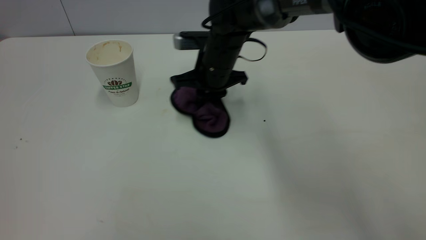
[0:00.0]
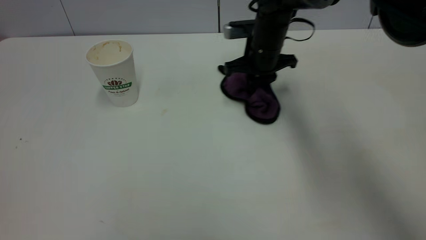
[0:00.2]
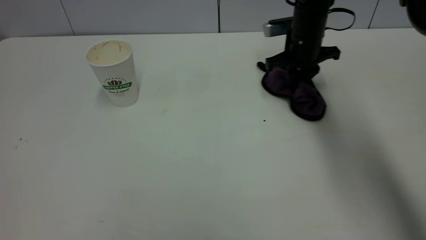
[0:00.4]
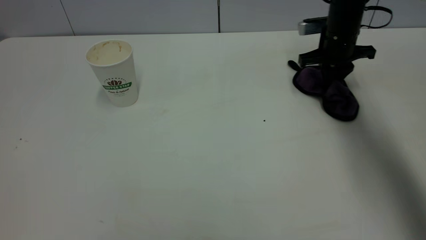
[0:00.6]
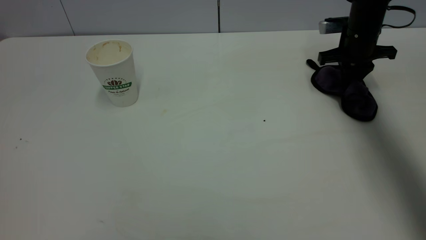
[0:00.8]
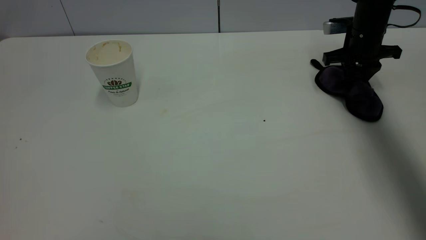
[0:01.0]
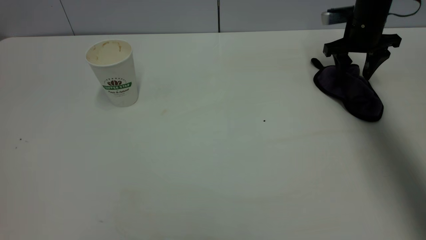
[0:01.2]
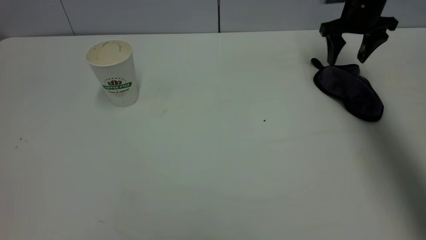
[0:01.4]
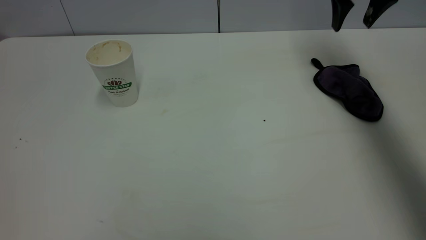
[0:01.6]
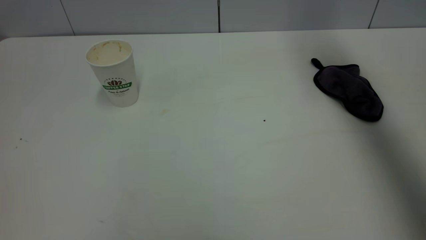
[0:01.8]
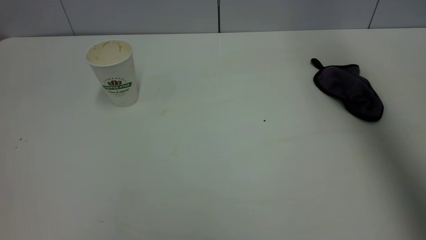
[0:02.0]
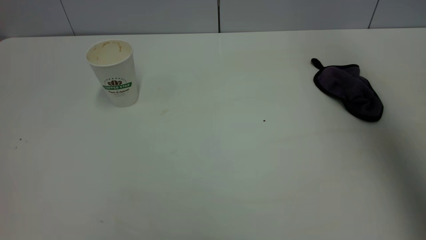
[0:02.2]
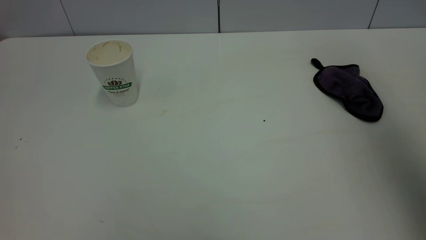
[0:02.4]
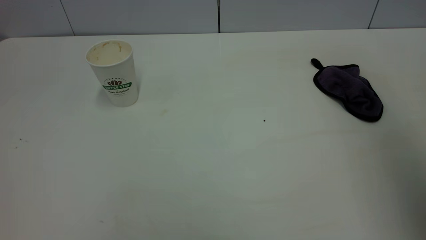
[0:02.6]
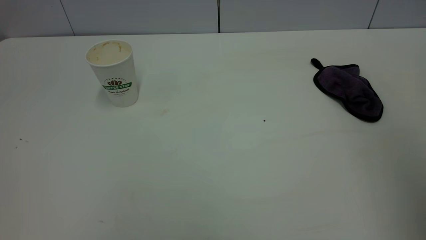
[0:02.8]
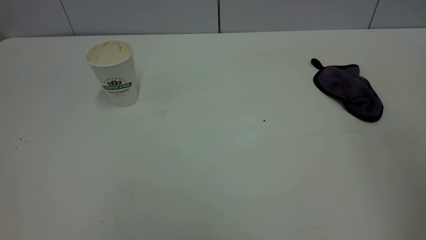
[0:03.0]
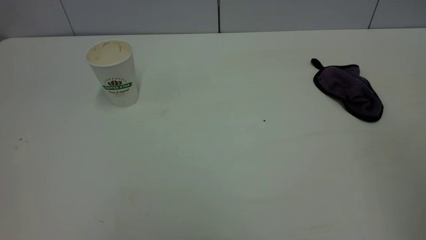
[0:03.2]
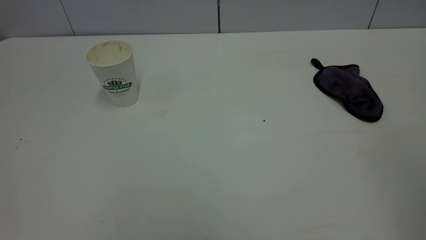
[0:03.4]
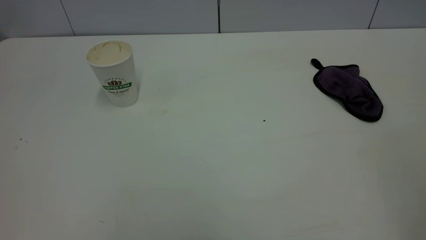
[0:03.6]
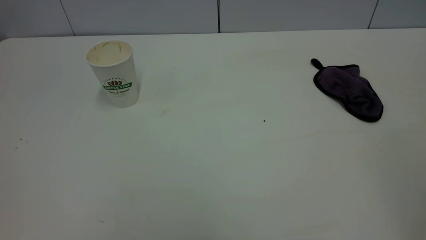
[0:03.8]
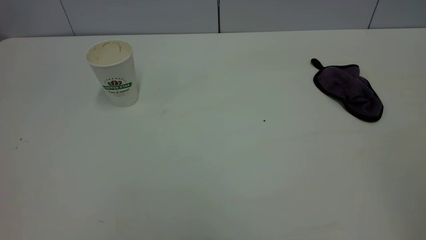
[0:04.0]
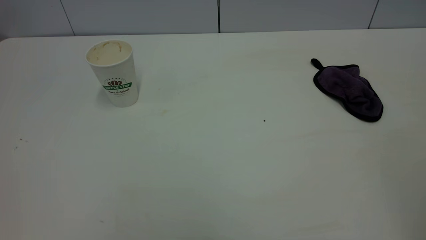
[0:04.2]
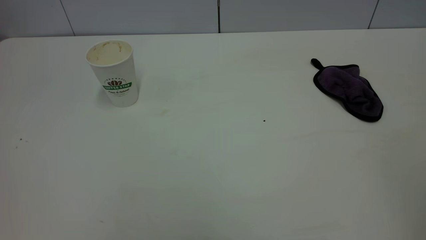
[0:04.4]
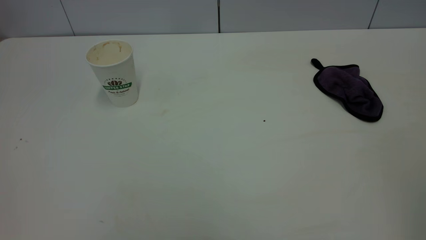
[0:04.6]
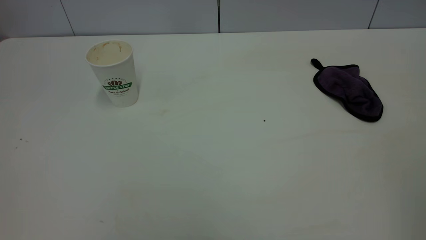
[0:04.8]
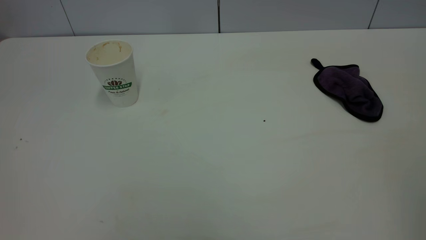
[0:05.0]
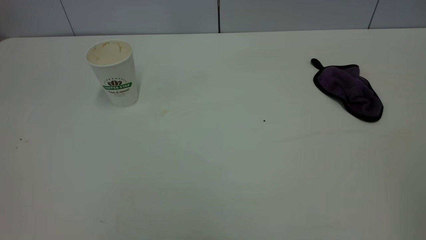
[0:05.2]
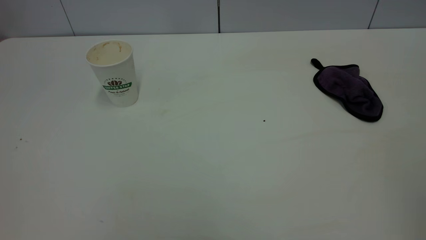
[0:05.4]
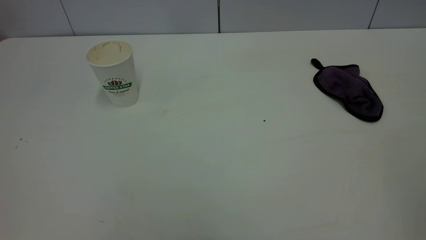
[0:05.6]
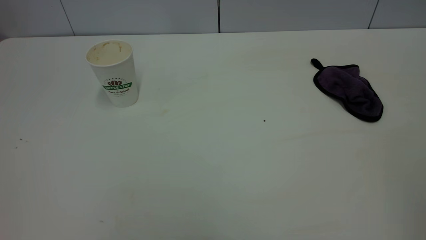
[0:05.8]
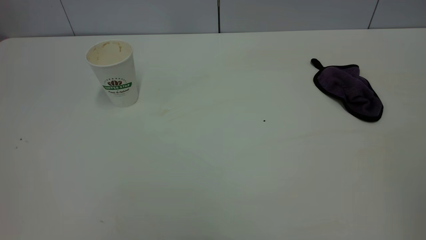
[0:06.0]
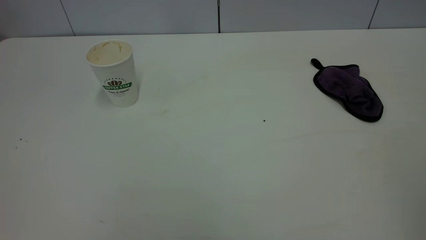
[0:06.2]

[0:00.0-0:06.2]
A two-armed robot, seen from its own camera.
Task of the whole recording: the left gripper pick up the fallen cup and place it upright, the right gripper grasp the purple rag and wipe the tea stain on the table, the right gripper put the purple rag back in its original position.
0:00.0 to 0:01.6: The right gripper moves to the right and upward, some 30 cm, and opens up.
0:01.6 to 0:03.2: The right gripper is displaced backward by some 40 cm.

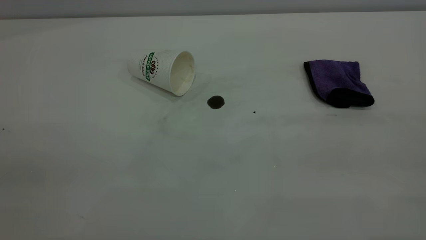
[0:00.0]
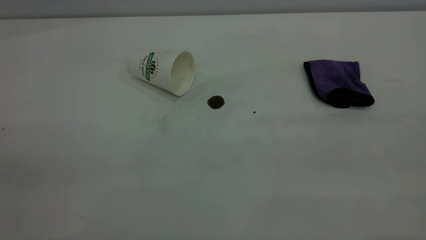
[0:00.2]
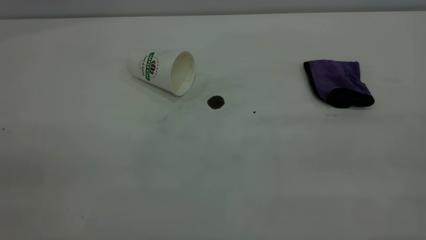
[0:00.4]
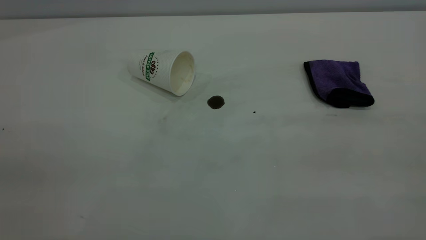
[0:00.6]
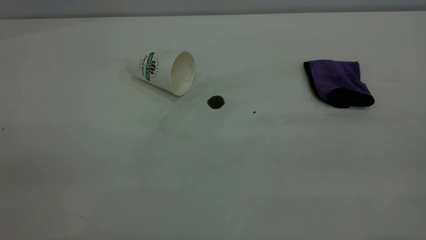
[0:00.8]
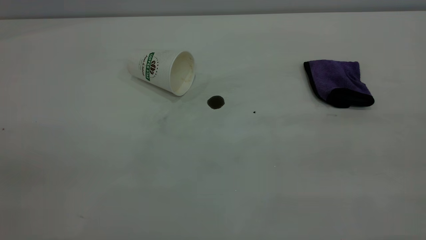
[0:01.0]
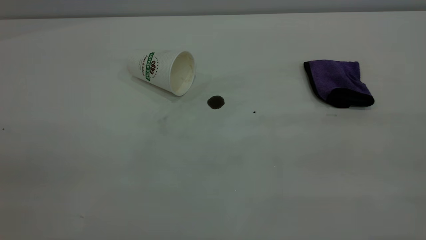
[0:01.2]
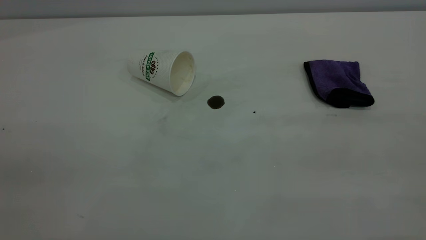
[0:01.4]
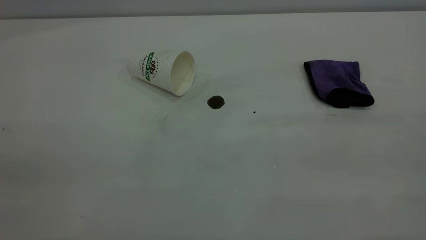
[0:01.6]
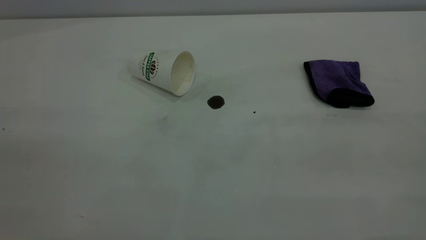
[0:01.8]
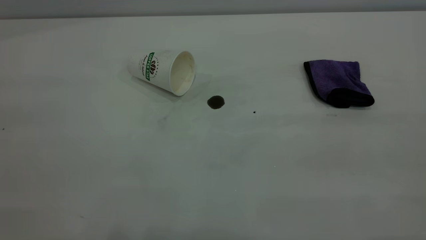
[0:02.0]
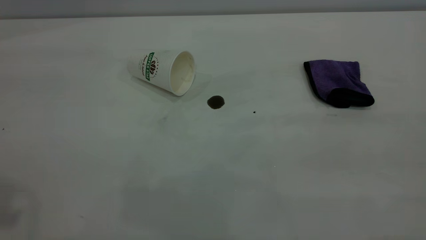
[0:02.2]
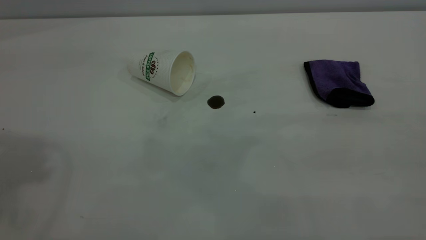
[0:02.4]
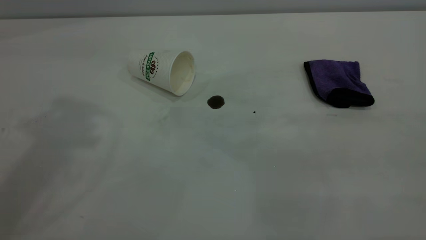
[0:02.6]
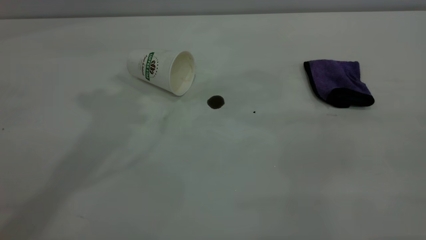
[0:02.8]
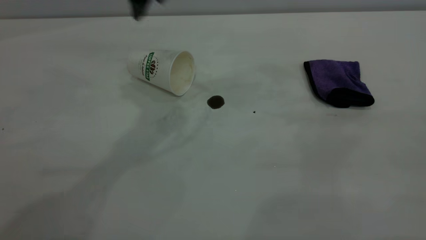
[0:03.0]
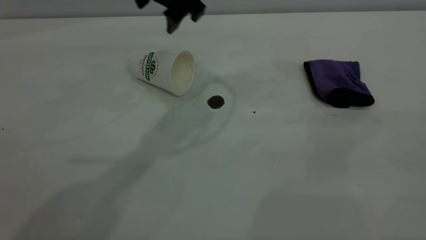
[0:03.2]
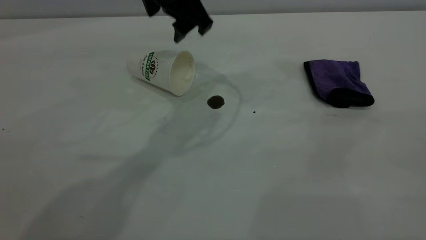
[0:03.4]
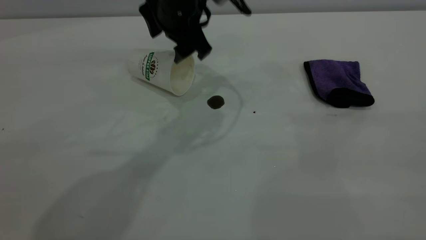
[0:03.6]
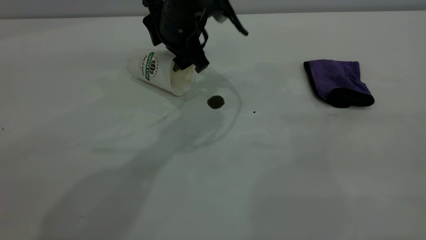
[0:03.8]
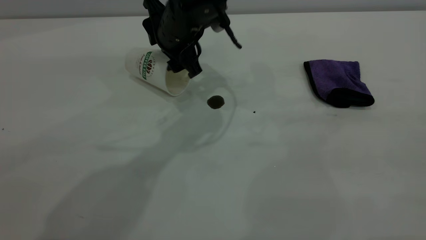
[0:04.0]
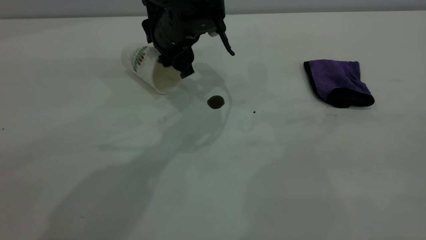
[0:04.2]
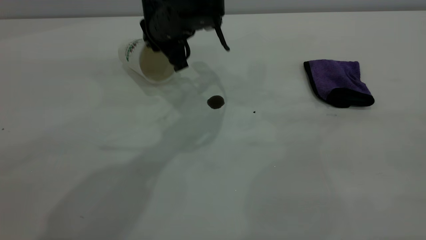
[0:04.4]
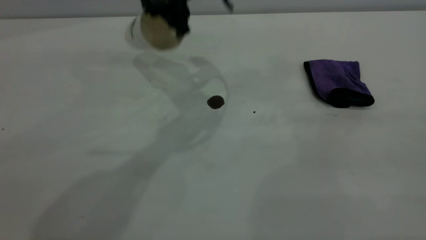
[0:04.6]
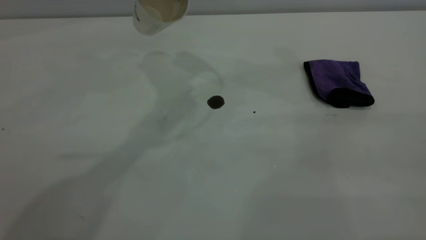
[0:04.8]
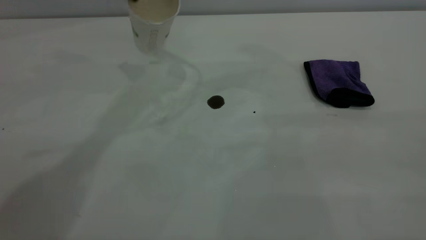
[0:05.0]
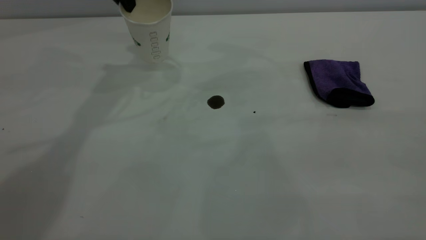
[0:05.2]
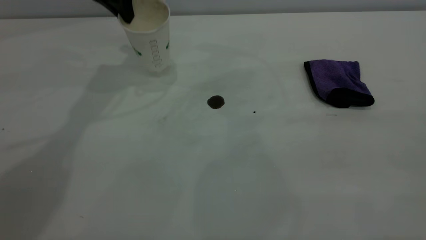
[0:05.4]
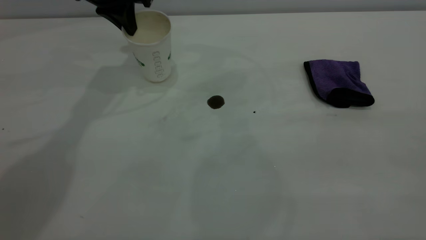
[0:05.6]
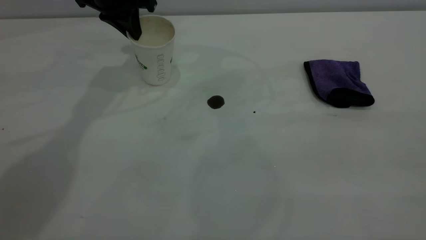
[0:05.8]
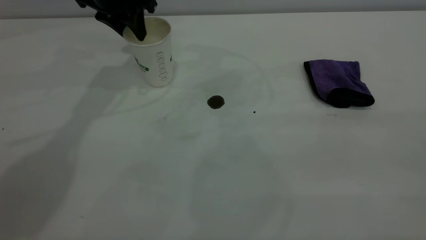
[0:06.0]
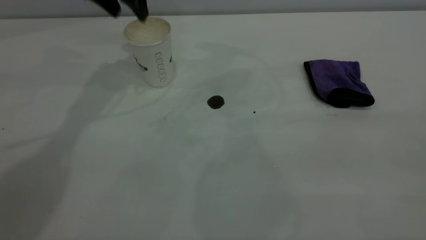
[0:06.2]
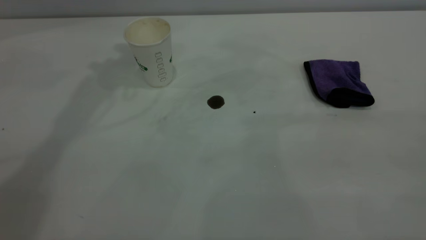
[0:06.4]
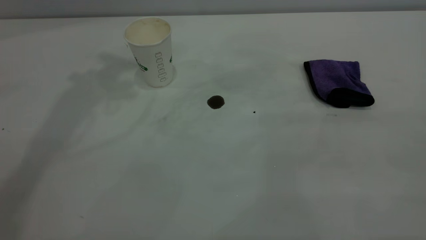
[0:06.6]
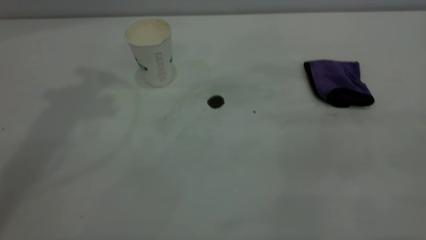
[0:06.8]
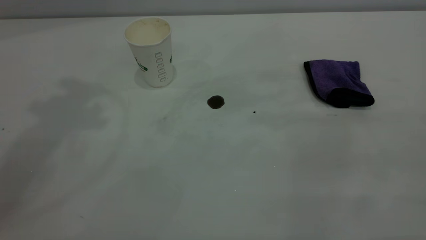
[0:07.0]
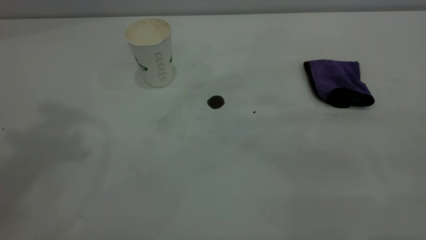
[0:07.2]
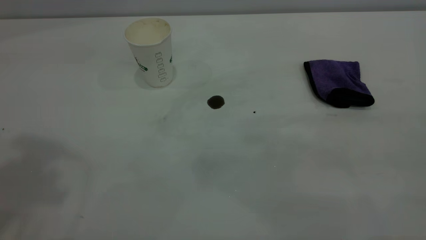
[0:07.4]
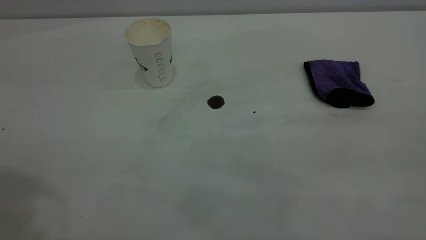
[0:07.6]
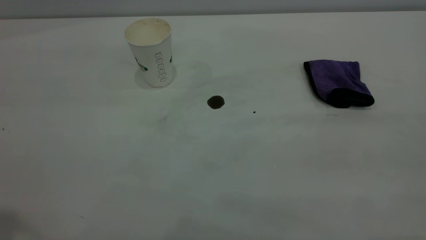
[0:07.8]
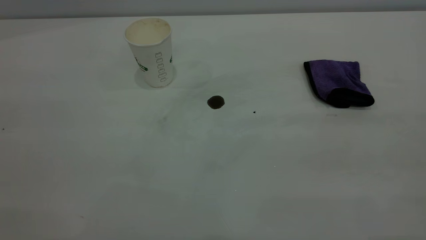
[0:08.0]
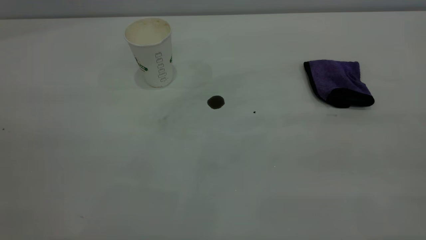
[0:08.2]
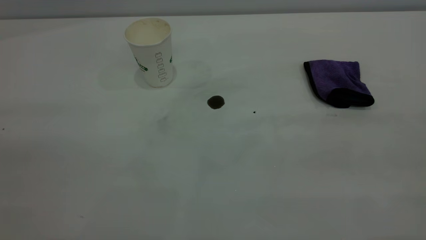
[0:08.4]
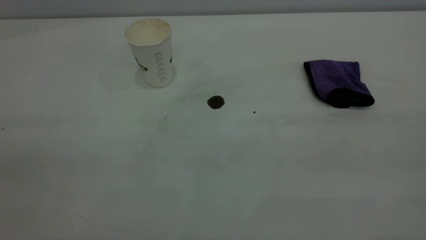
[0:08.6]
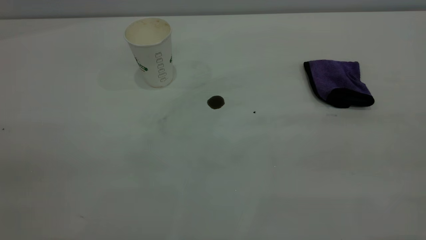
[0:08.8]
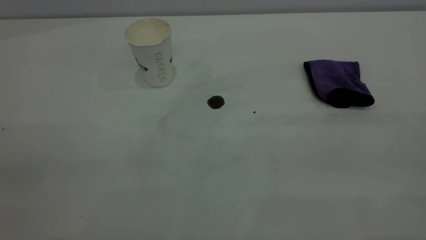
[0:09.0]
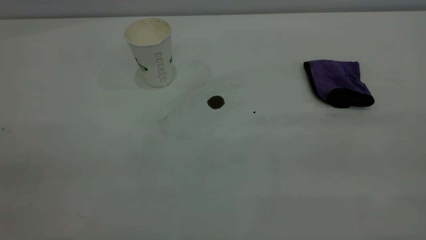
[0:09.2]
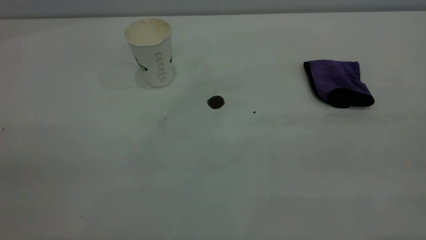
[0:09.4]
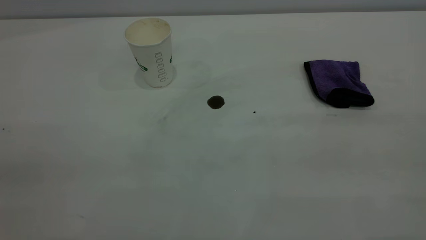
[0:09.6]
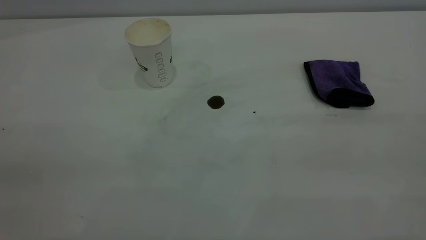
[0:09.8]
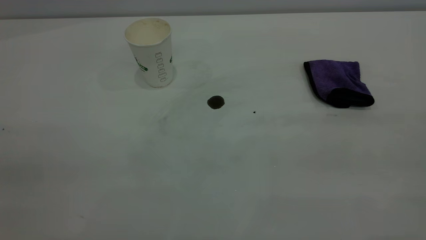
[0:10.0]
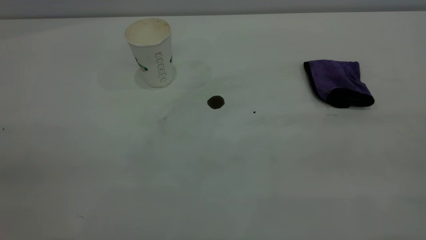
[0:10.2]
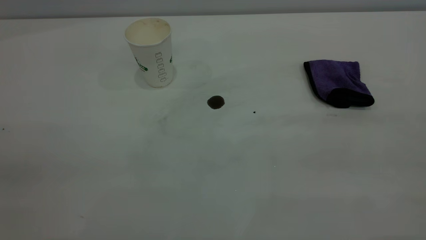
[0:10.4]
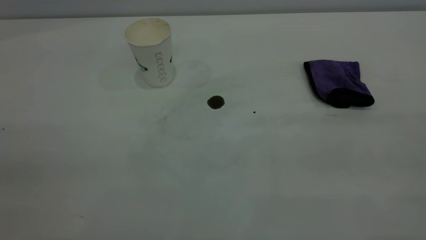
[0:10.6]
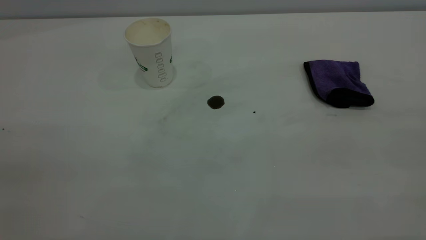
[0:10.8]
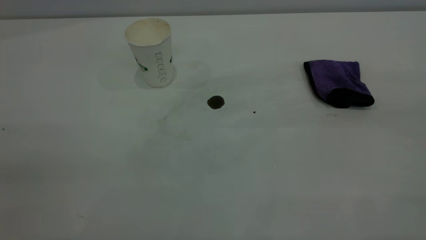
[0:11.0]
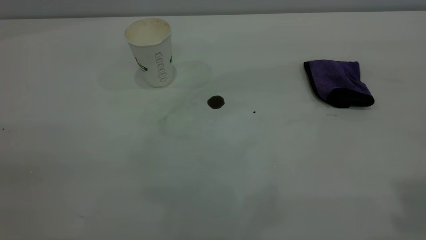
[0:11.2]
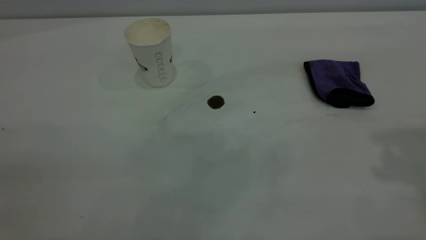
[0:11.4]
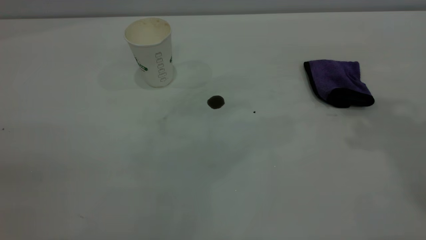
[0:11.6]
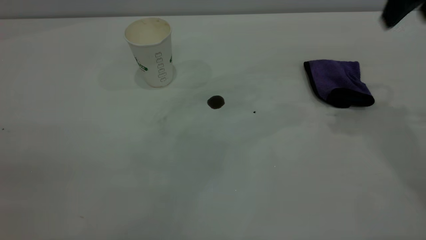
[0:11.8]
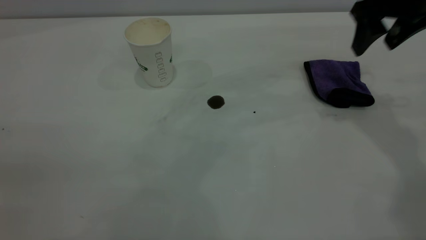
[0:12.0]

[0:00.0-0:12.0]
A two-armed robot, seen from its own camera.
Task of the whole recording: the left gripper pick up the fallen cup and place it upright, the right gripper grasp the purple rag and wipe the coffee stain on the table, the right gripper put the purple rag back in its original position.
Step, 0:00.0 to 0:06.0: Stand the paper cup upright.
0:00.0 to 0:01.6: Both grippers stay put.
0:03.0 to 0:04.4: The left gripper goes approximately 10 cm downward, and closes up.
0:04.4 to 0:06.0: The left gripper goes roughly 15 cm to the left, upward and forward, and opens its fingers.
0:06.0 to 0:07.6: The left gripper shifts about 40 cm backward and upward.
0:09.0 to 0:10.4: Both grippers stay put.
0:10.4 to 0:12.0: The right gripper is displaced forward by about 40 cm.
